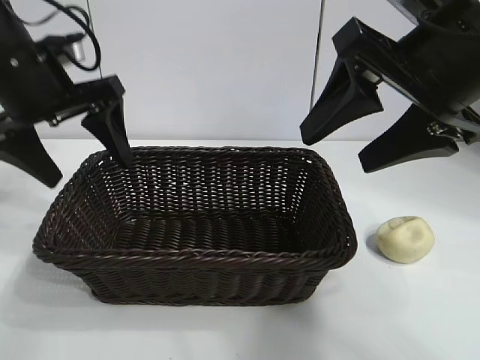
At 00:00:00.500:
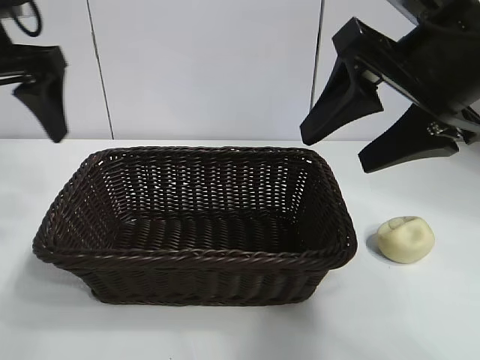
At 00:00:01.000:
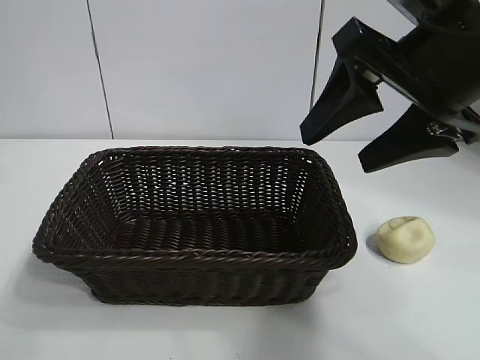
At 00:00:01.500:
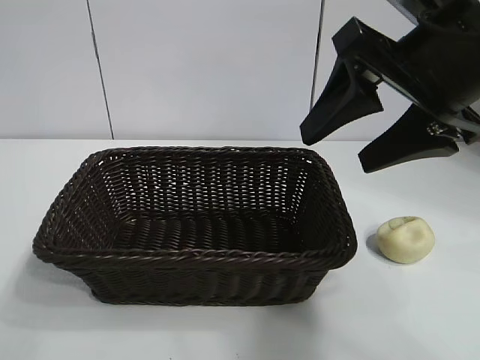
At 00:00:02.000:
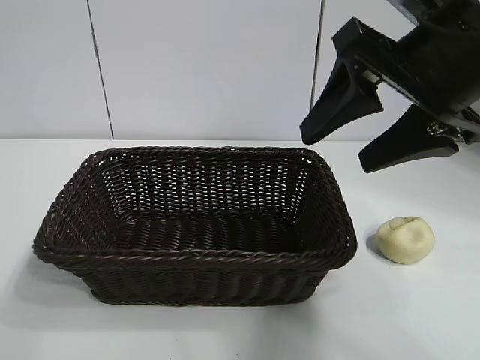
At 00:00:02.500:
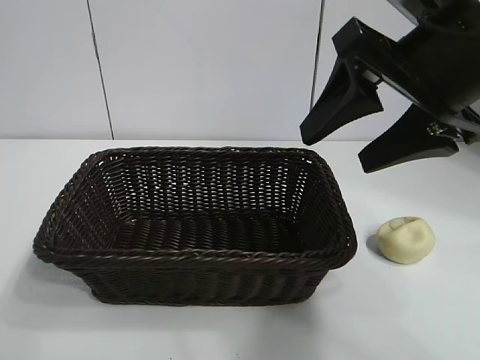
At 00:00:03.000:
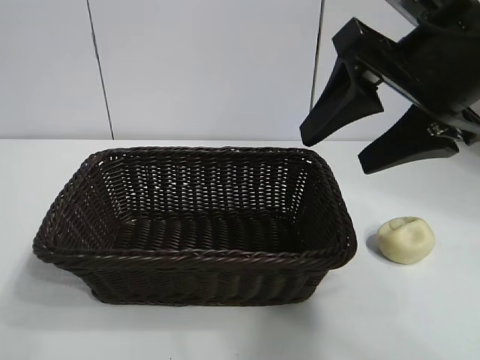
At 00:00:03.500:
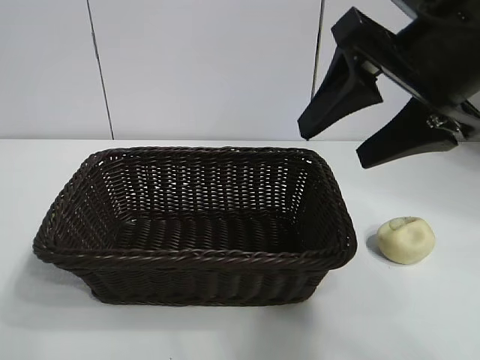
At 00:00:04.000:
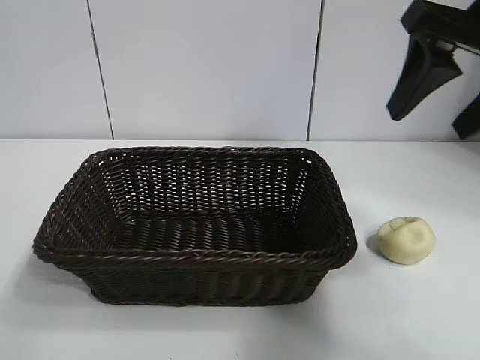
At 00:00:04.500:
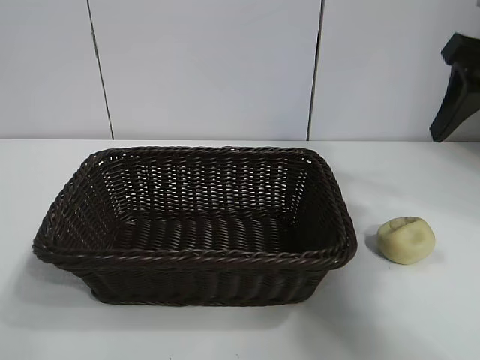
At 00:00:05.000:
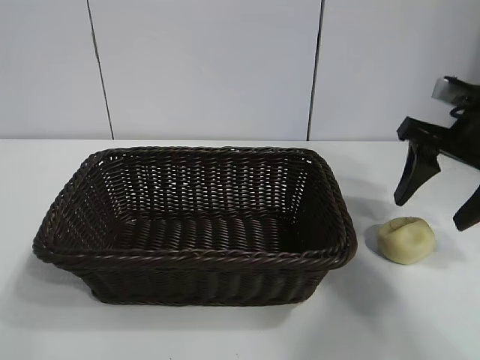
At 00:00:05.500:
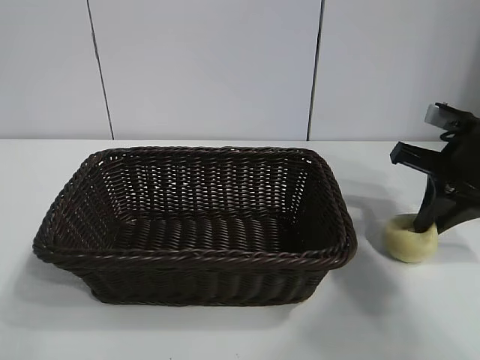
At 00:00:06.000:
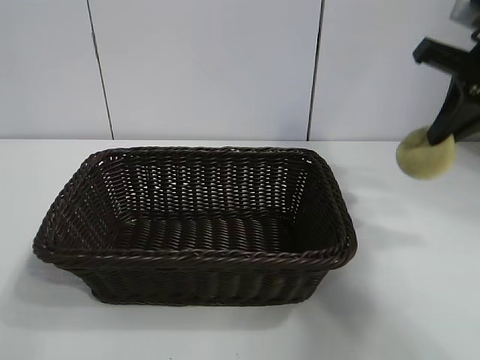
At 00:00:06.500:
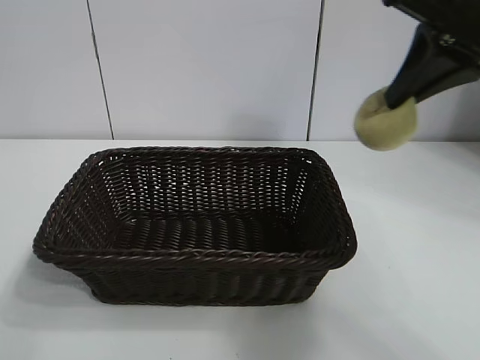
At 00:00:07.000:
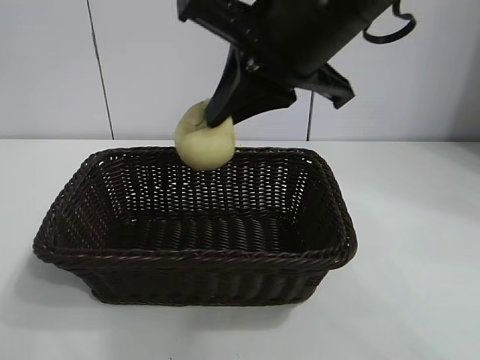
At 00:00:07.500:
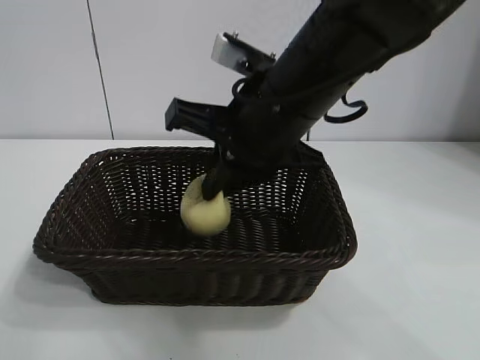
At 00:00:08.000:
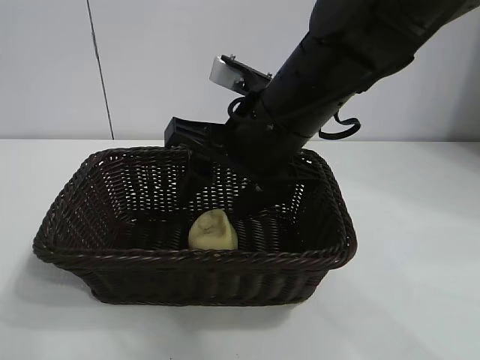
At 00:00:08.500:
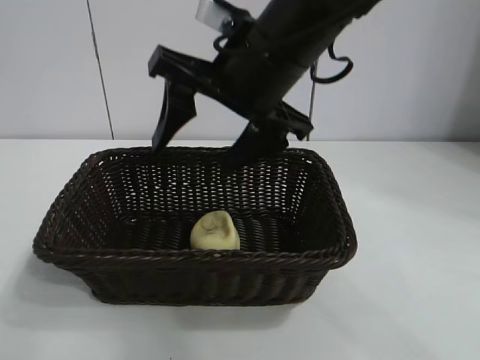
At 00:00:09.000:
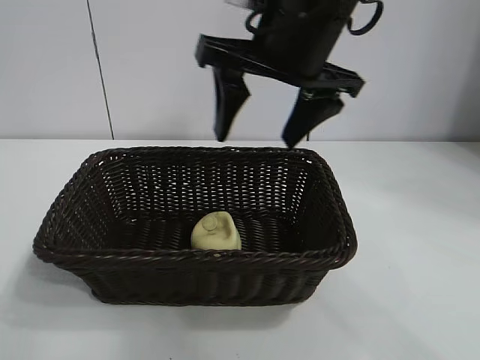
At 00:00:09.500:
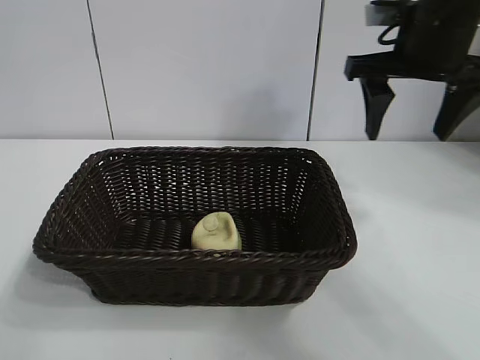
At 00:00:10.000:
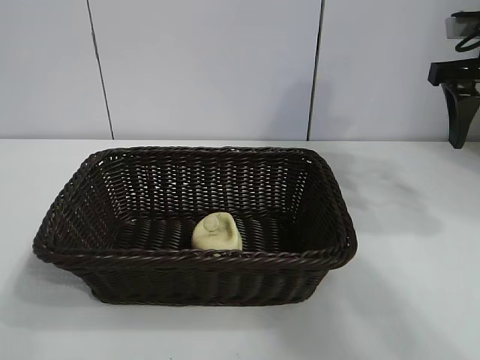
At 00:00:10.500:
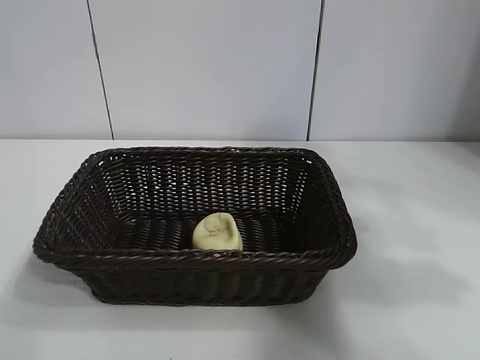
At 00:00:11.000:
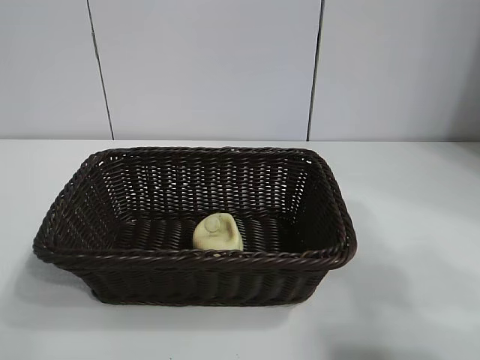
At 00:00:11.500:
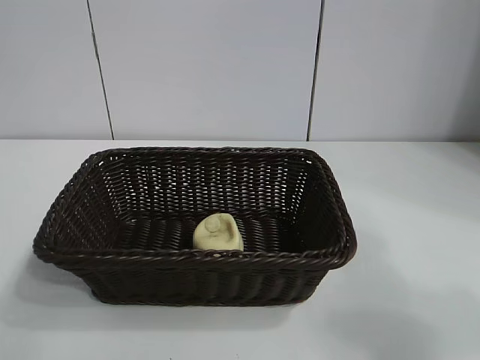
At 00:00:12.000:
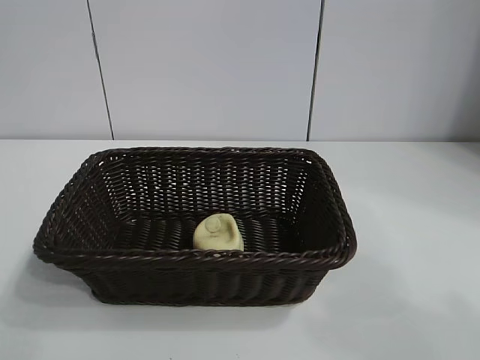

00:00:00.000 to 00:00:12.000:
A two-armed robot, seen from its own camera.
Task of the whole recording: pick up the egg yolk pastry and put it into the basket.
Step, 00:00:00.000 to 00:00:05.500: Grasp egg yolk pastry with right gripper.
Step, 00:00:06.000 to 00:00:08.000: Place the egg yolk pastry in the basket with right gripper.

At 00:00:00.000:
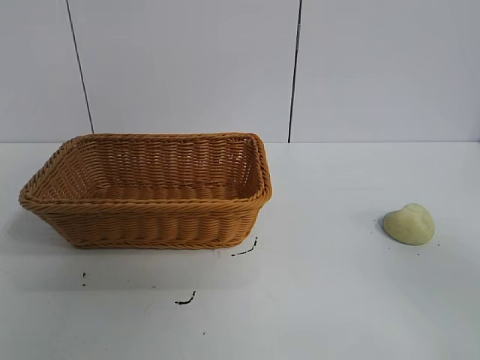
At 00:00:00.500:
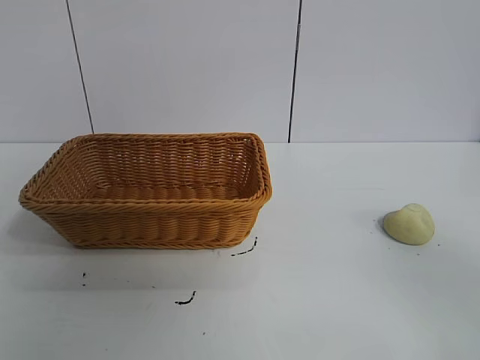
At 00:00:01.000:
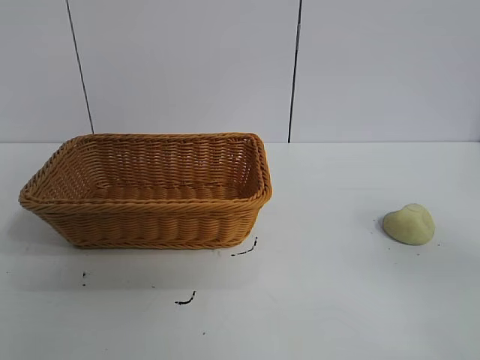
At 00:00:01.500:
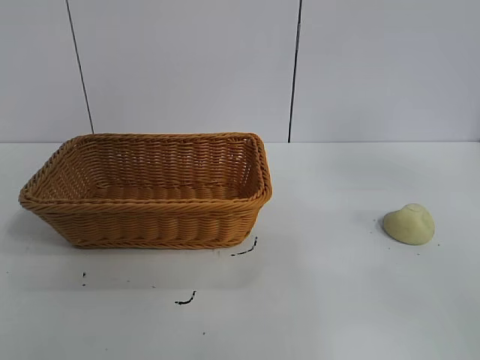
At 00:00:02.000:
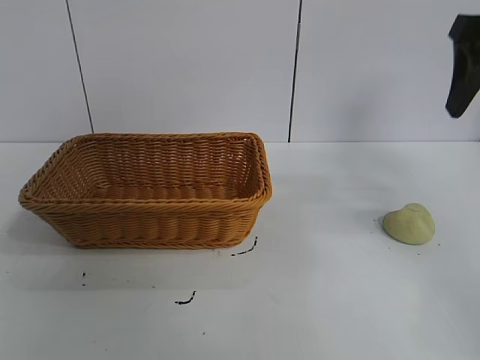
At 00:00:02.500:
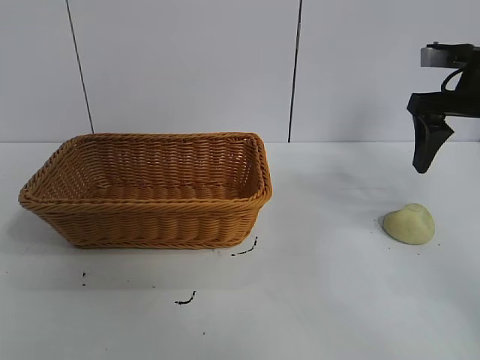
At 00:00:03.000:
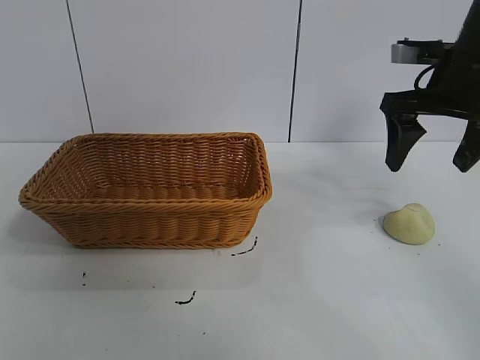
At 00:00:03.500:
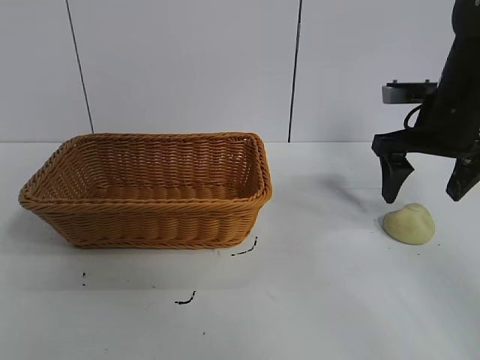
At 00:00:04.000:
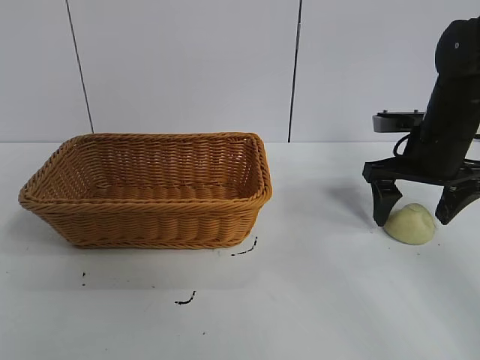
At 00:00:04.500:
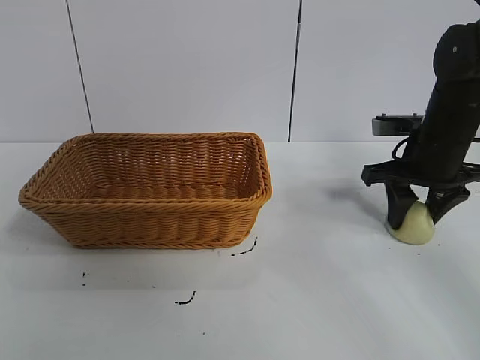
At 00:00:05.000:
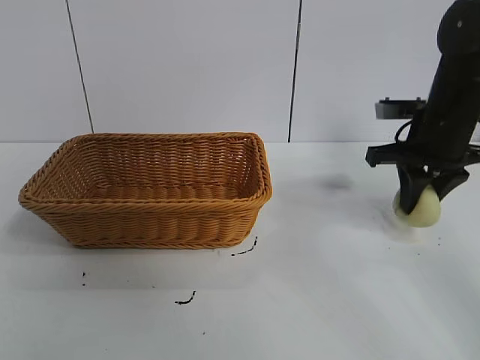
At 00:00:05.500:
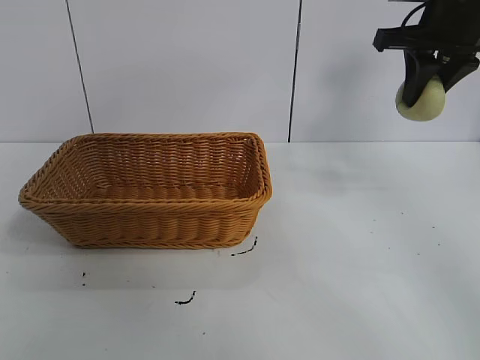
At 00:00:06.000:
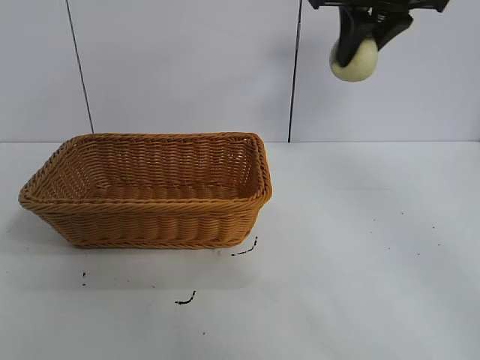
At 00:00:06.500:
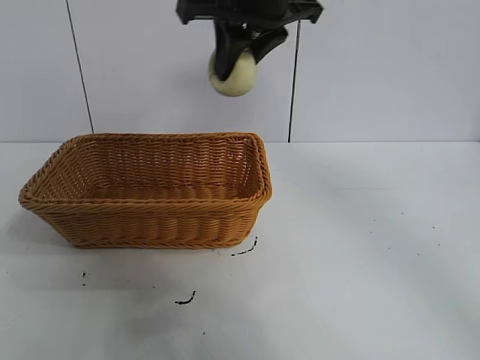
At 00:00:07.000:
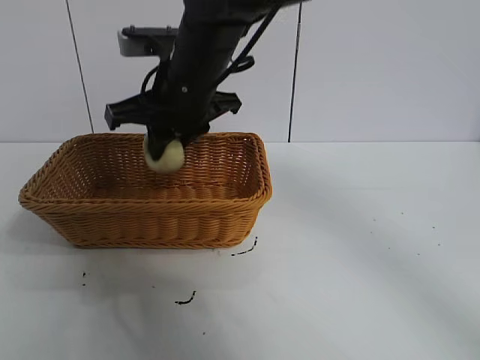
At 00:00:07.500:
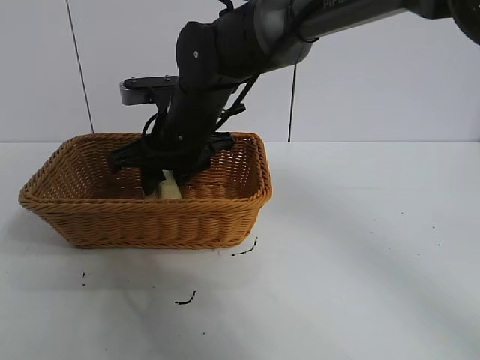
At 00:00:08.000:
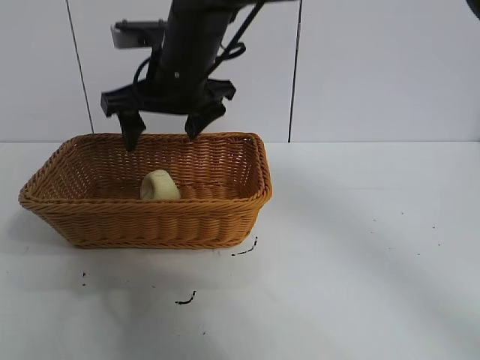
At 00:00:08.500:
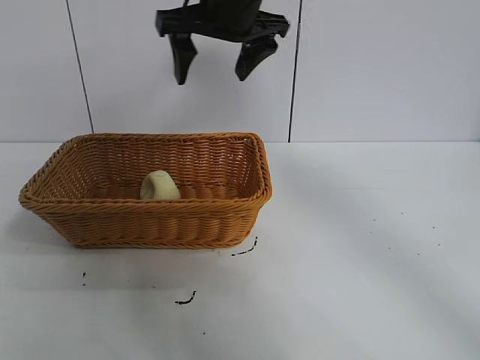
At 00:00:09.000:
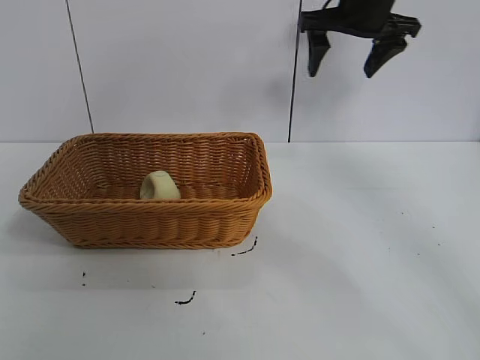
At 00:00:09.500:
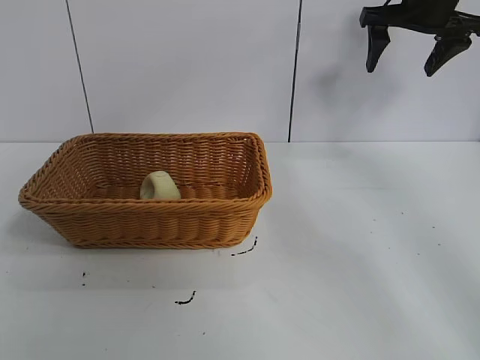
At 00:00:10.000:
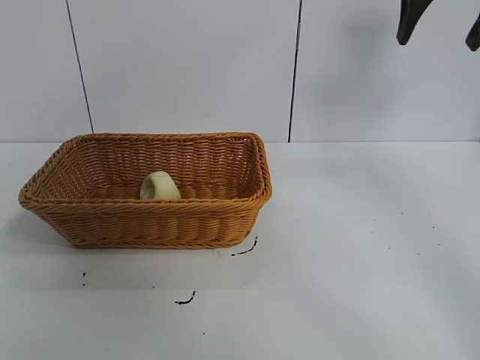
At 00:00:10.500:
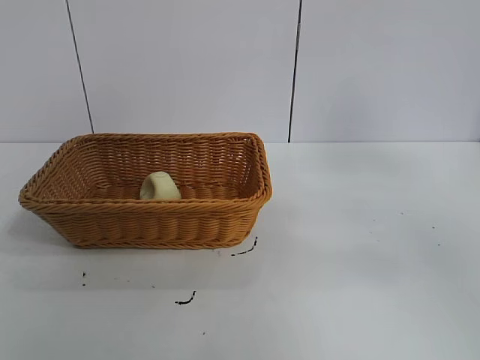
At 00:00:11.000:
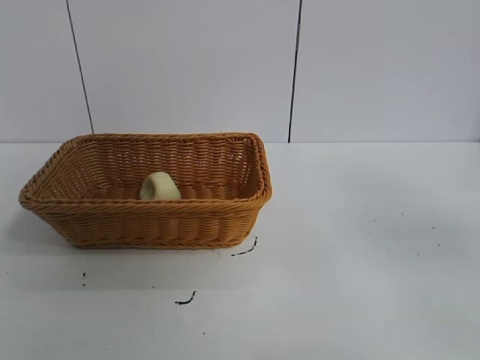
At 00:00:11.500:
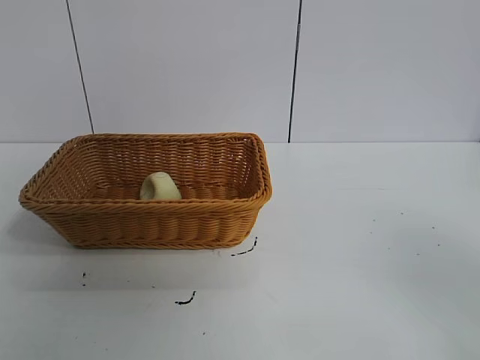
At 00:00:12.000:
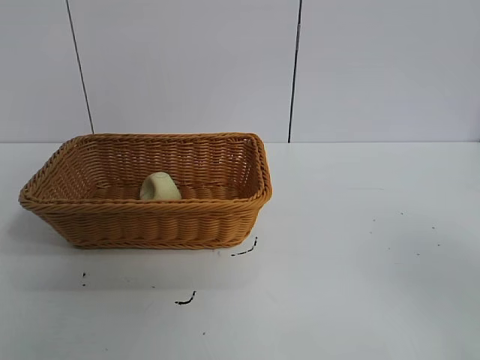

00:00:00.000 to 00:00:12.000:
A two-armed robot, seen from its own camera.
Task of the whole recording: pick up the egg yolk pastry and put it into the basket.
Step, 00:00:01.000 to 00:00:04.500: Grasp egg yolk pastry with right gripper.
Step, 00:00:05.000 to 00:00:07.500: Place the egg yolk pastry in the basket with right gripper.
